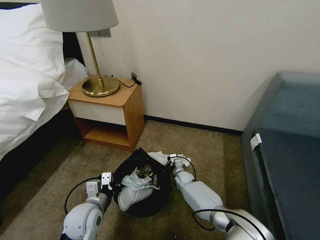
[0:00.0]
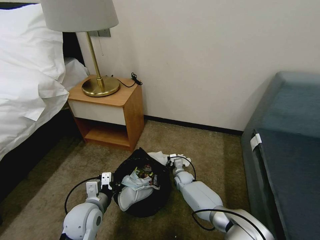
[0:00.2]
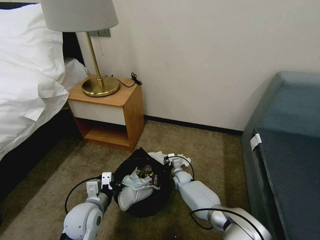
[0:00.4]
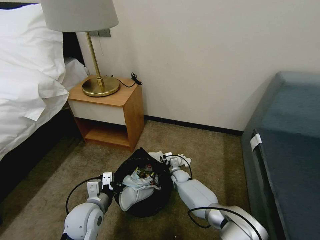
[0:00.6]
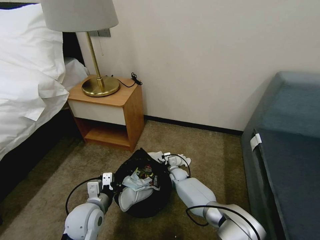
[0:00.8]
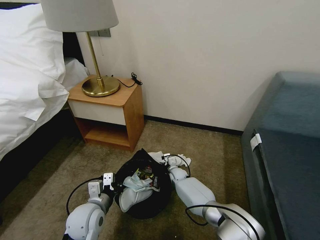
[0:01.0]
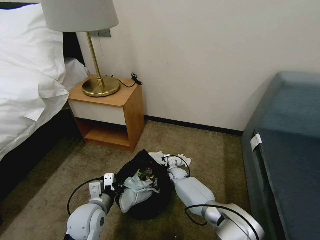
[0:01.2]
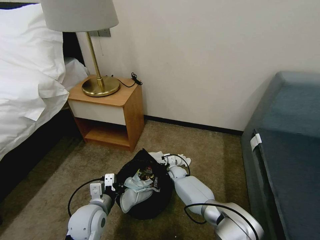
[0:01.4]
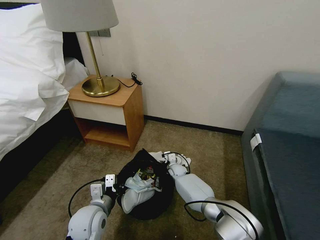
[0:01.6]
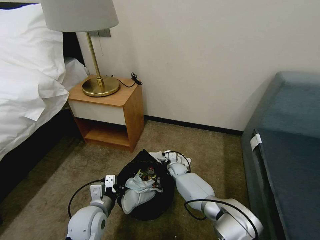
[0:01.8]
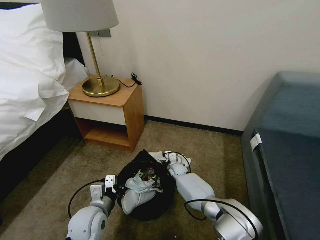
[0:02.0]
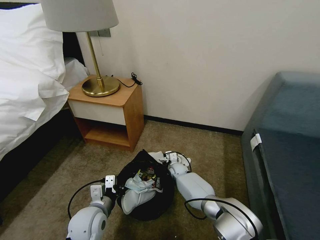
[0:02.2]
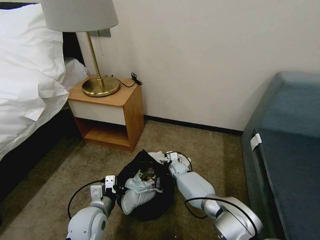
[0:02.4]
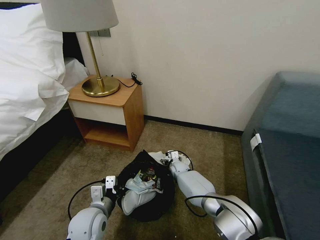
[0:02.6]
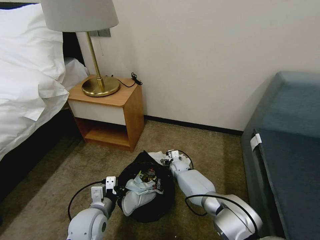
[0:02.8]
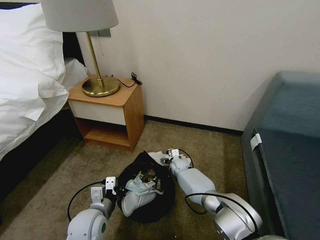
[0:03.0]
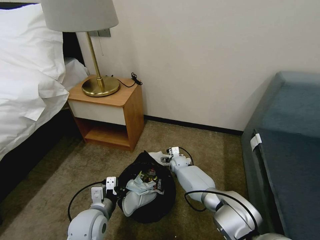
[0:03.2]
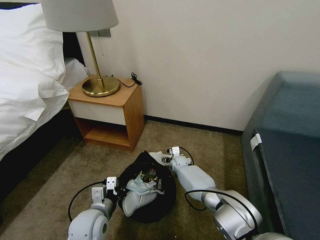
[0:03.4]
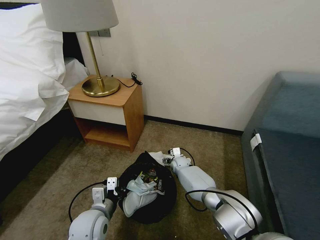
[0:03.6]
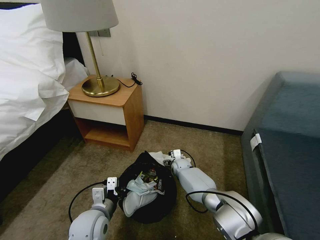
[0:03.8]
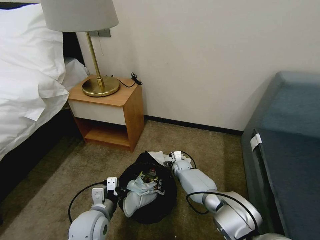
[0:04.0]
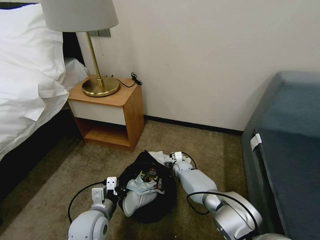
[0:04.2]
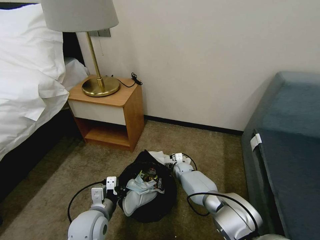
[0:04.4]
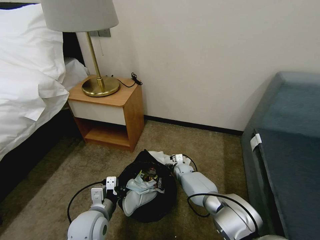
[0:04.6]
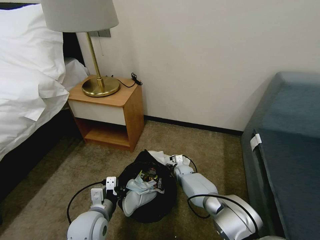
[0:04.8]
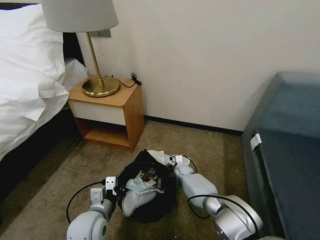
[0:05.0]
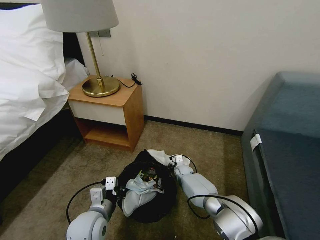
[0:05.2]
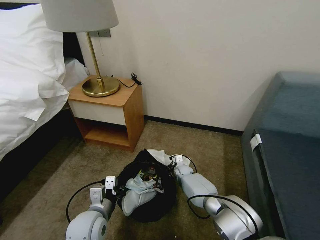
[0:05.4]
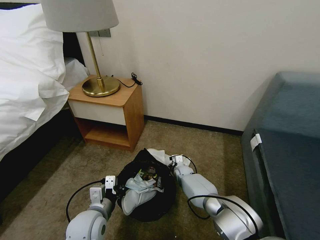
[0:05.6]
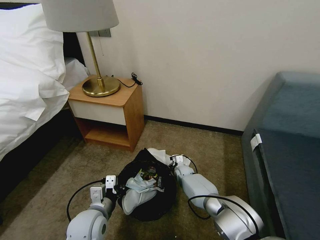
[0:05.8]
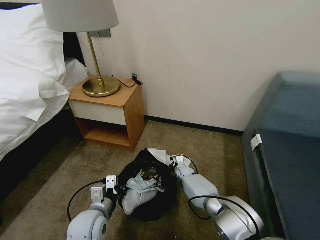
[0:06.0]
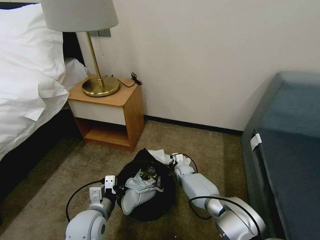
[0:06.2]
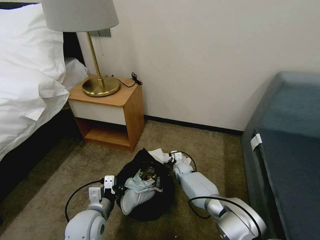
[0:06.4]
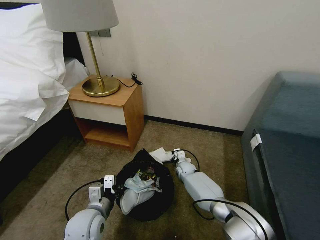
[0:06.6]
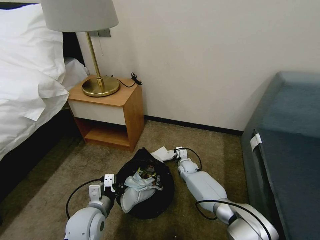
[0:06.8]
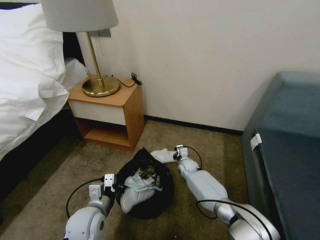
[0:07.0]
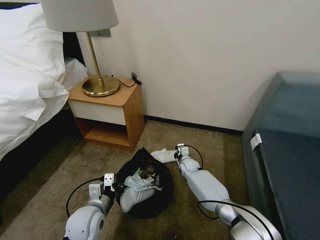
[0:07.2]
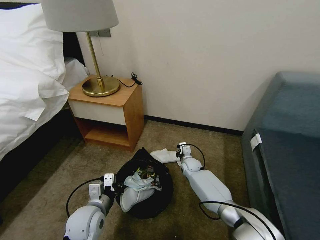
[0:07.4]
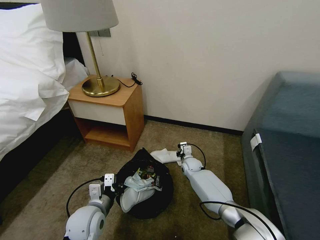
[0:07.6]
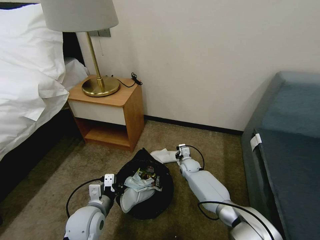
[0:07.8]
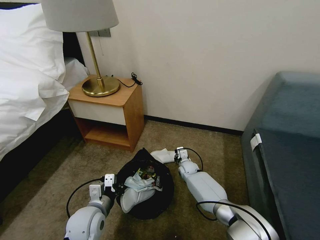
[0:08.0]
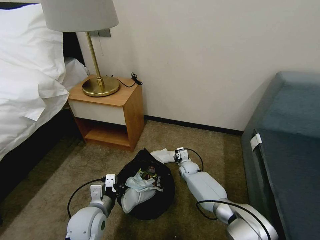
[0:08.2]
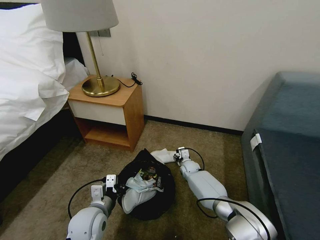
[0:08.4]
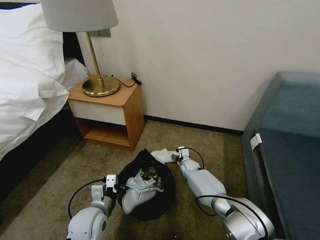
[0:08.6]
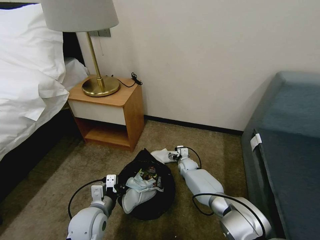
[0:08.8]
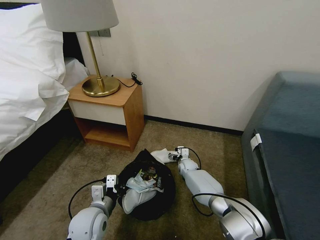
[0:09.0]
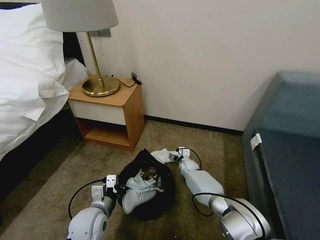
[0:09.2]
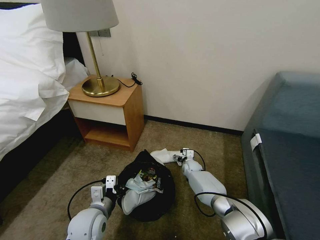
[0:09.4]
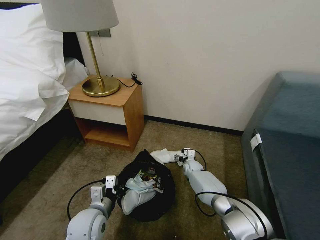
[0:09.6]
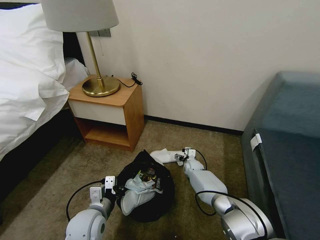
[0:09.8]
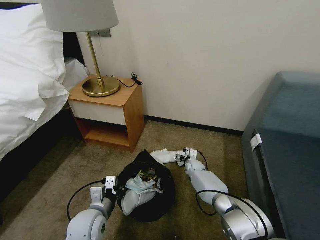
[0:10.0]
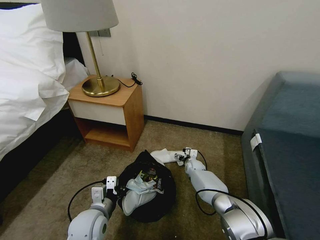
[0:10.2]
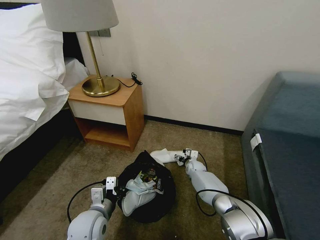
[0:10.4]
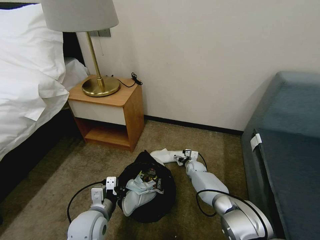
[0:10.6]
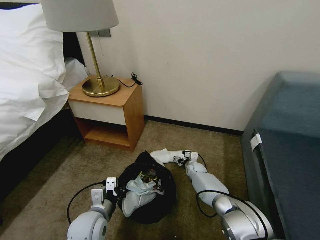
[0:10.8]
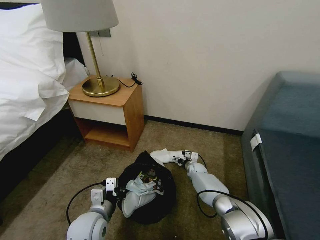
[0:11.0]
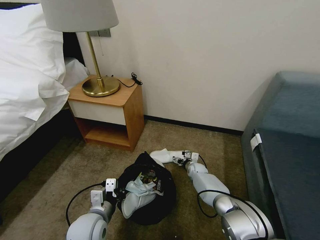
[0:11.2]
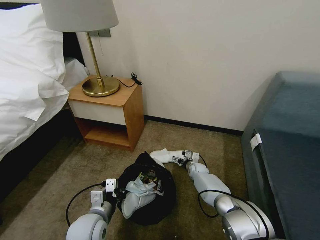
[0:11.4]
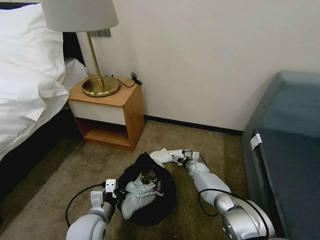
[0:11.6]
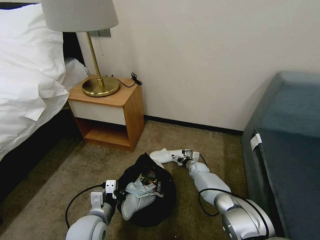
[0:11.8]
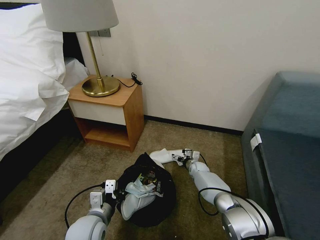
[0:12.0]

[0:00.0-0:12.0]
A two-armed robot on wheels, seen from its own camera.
Task of the whole recording: Pick up the trash bin, then pick up the garbage on the floor and place it into the trash bin.
0:00.0 to 0:01.6: The right gripper opens.
0:01.6 to 0:04.4: The grippers make only small movements.
0:04.4 to 0:06.0: The right gripper closes its fingers.
0:06.0 to 0:07.6: The right gripper moves upward, some 5 cm.
0:07.6 to 0:09.0: The right gripper opens.
0:09.0 to 0:10.4: There are only small adjustments of the grippers.
0:10.4 to 0:12.0: The grippers move only a little.

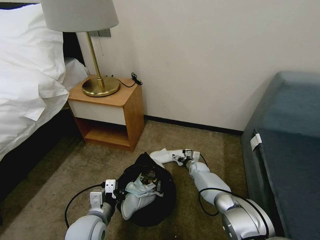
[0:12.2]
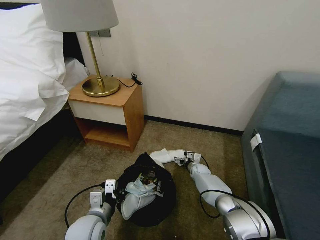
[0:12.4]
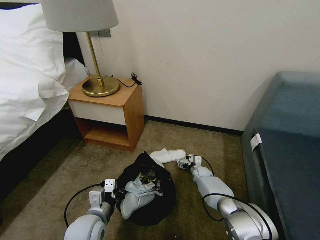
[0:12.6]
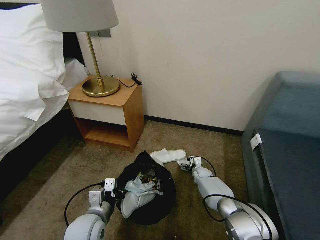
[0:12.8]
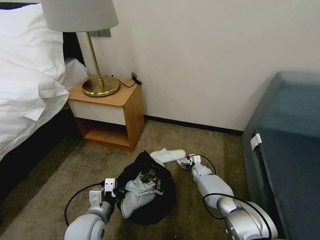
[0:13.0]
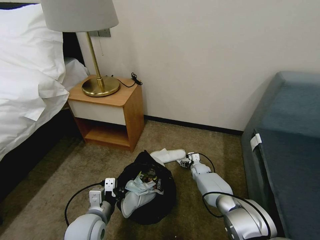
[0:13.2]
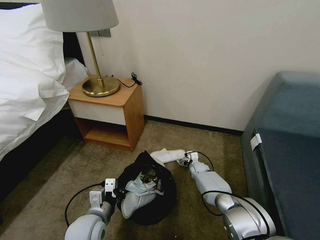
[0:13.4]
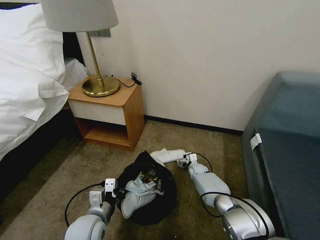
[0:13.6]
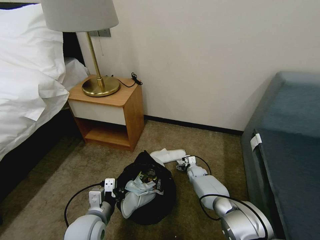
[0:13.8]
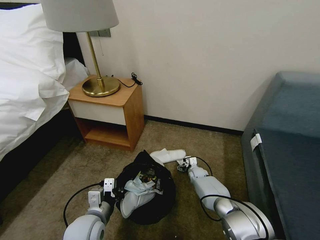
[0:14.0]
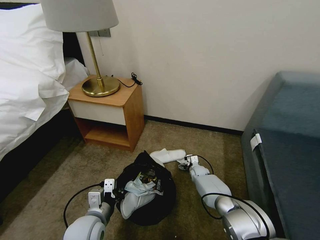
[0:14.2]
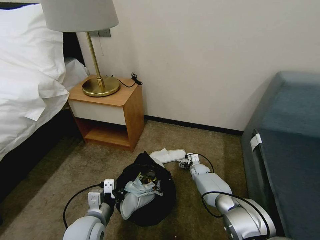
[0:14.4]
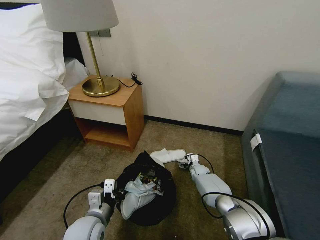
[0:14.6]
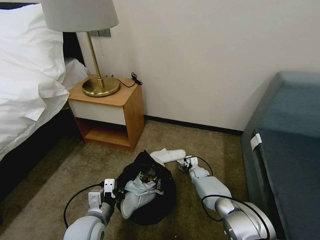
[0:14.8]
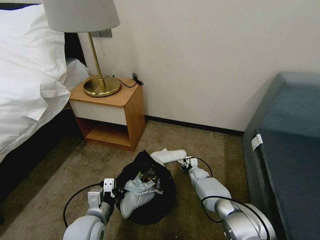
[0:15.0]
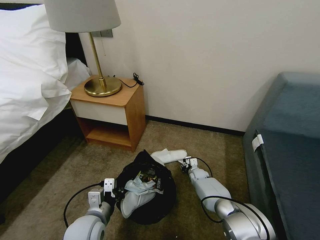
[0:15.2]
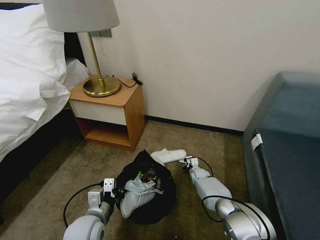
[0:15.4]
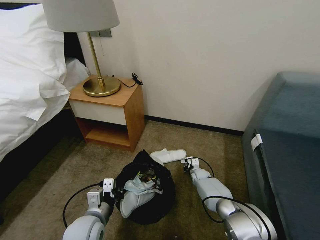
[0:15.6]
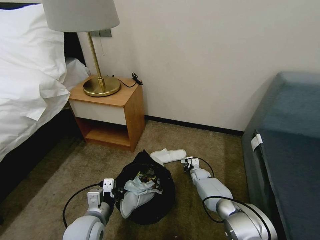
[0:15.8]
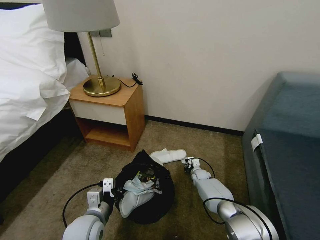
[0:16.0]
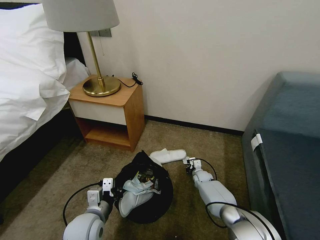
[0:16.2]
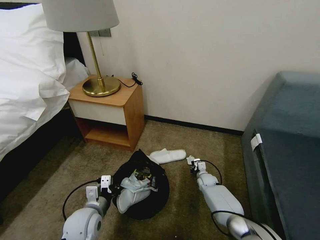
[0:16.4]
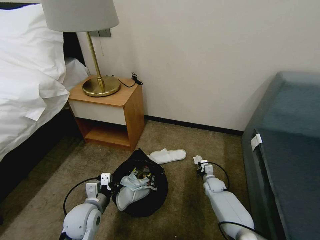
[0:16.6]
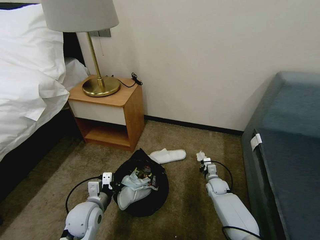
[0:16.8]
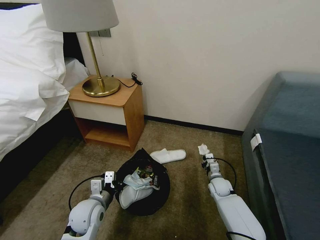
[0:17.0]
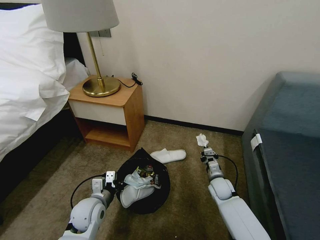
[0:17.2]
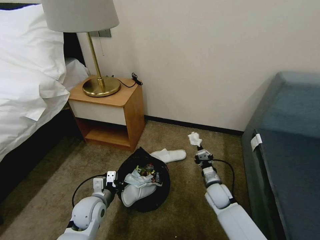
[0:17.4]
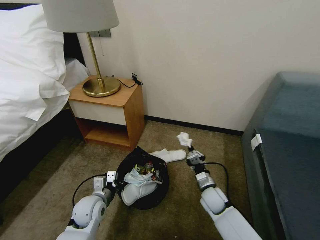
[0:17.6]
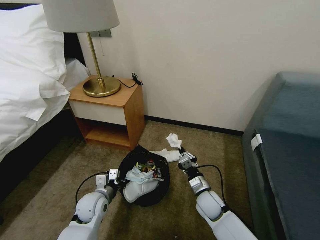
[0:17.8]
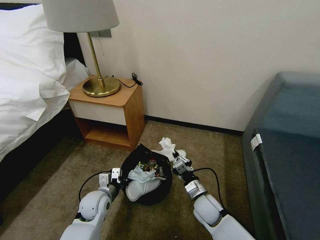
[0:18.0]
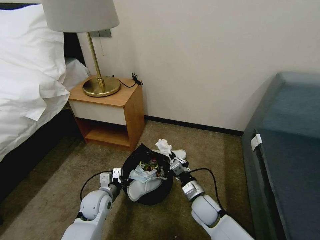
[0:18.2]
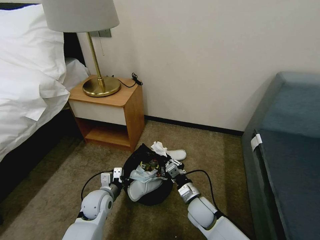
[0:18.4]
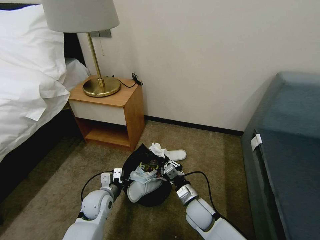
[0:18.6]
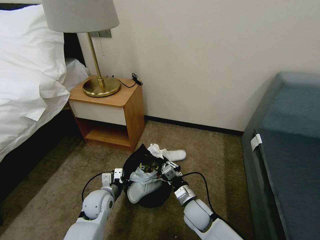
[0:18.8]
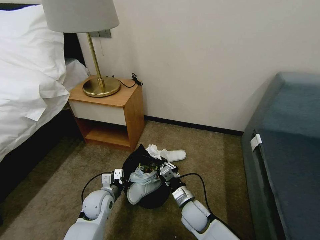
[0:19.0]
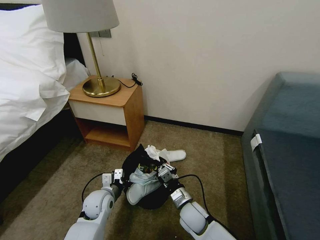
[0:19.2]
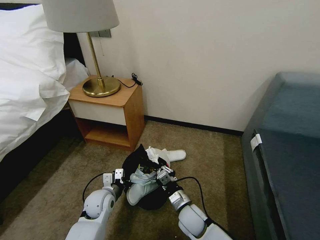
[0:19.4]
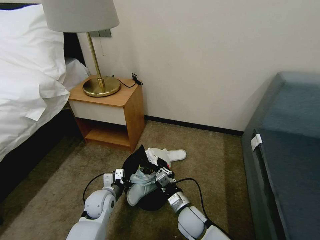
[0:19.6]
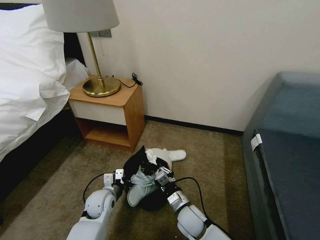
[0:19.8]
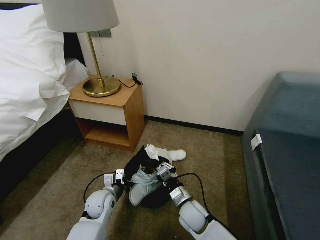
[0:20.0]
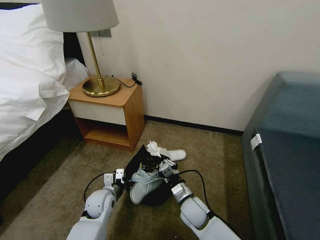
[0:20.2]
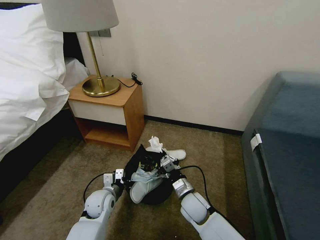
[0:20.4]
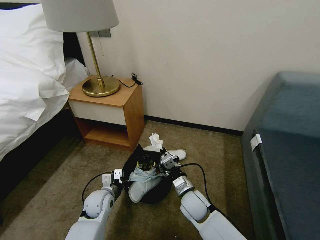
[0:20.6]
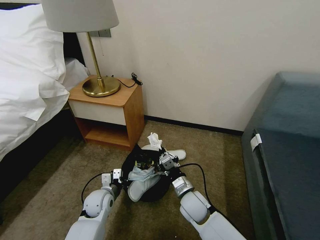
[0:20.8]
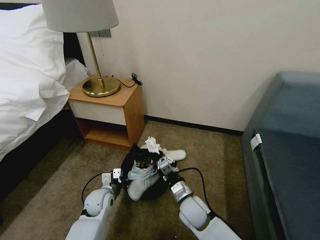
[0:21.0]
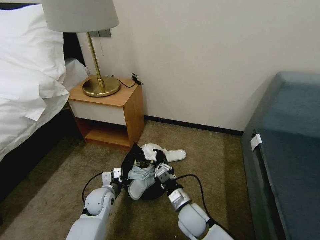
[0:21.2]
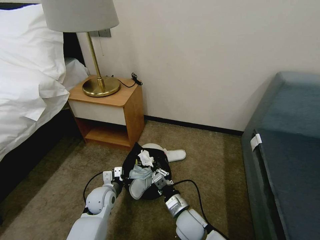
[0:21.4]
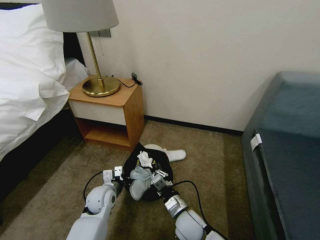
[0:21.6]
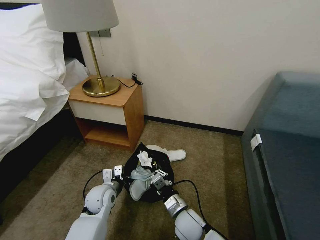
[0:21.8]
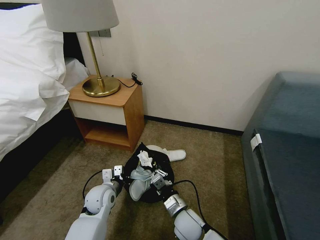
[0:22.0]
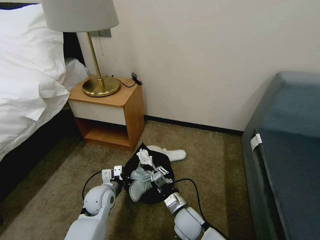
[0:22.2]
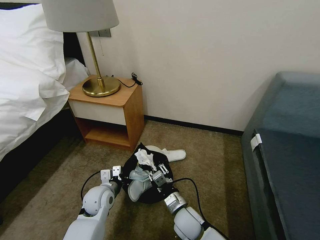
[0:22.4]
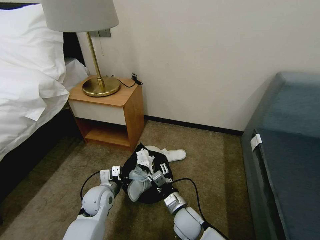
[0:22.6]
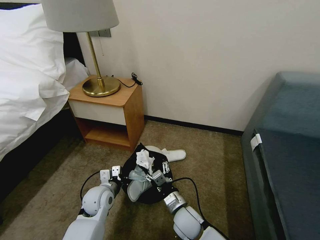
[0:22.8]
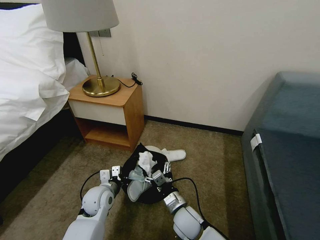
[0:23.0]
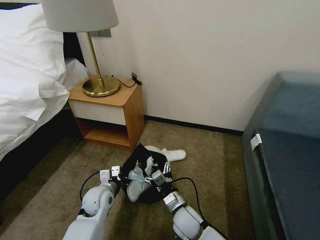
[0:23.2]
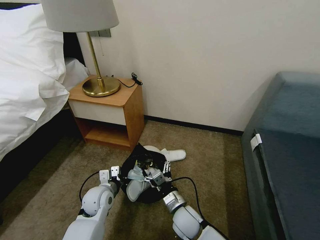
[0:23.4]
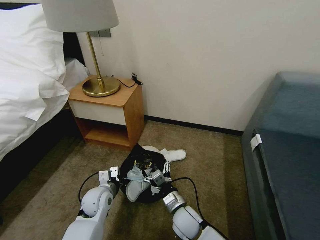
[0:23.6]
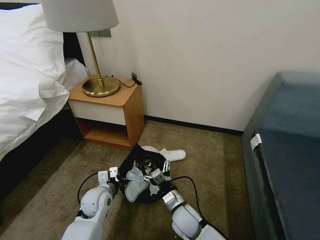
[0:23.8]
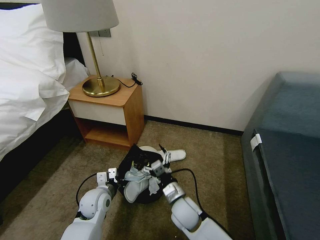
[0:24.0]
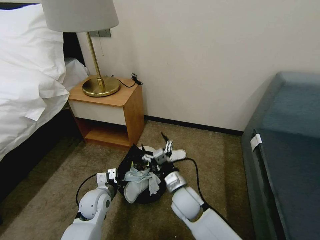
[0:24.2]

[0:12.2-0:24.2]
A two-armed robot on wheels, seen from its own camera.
Task of the whole recording: Pick up the trash bin, then pick up the garbage on the floor and place it into the trash bin.
0:13.8 to 0:15.2: The right gripper closes up.
0:15.2 to 0:16.6: The right gripper travels backward and to the right by about 10 cm, and closes its fingers. Meanwhile the left gripper changes place by about 5 cm.
0:16.6 to 0:18.2: The left gripper travels forward by approximately 5 cm, while the right gripper heads backward, upward and to the left, covering roughly 20 cm.
0:18.2 to 0:19.8: The right gripper travels to the left by some 5 cm.
0:19.8 to 0:21.2: The grippers move only a little.
0:21.2 to 0:22.6: The right gripper opens its fingers.
0:22.6 to 0:24.2: The right gripper shifts about 5 cm upward, and opens its fingers.
